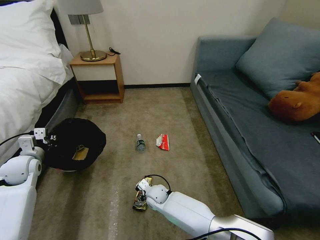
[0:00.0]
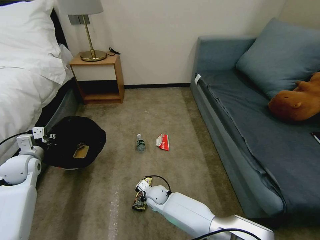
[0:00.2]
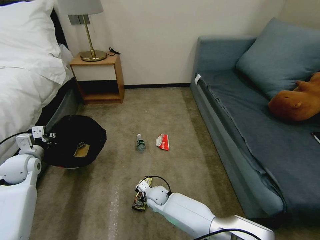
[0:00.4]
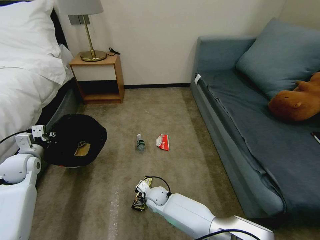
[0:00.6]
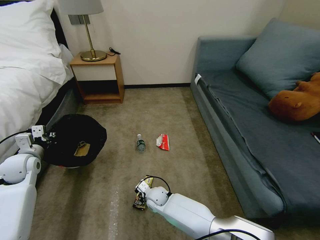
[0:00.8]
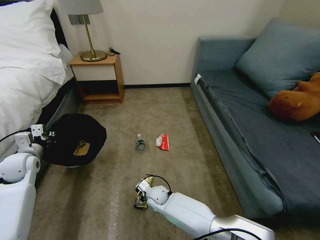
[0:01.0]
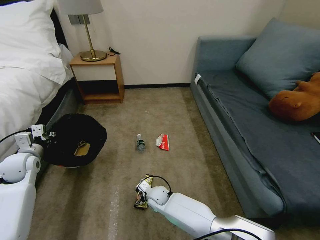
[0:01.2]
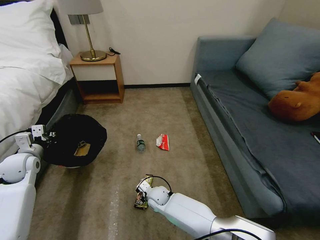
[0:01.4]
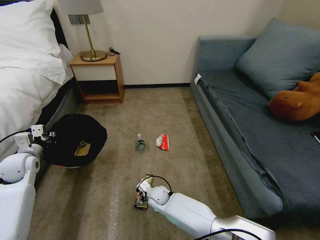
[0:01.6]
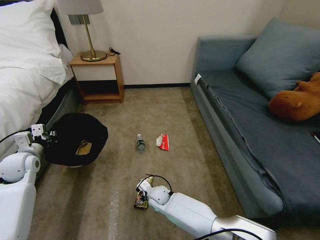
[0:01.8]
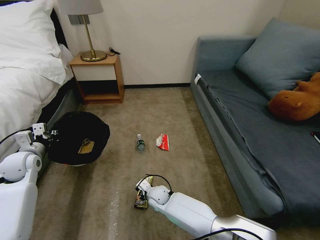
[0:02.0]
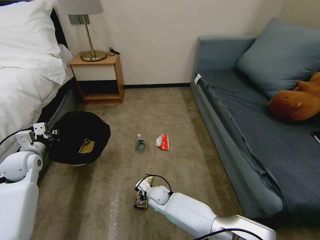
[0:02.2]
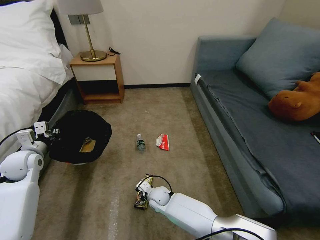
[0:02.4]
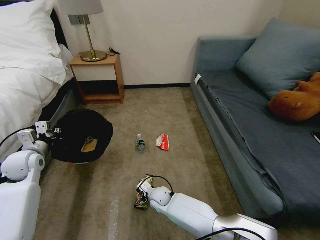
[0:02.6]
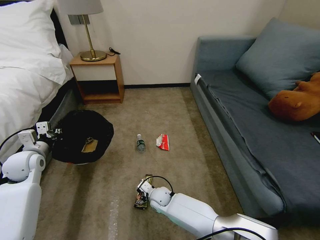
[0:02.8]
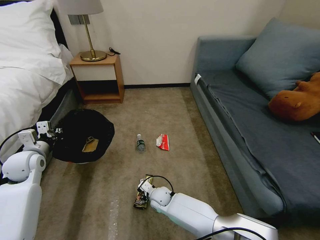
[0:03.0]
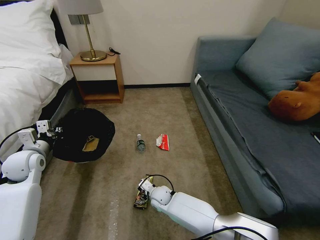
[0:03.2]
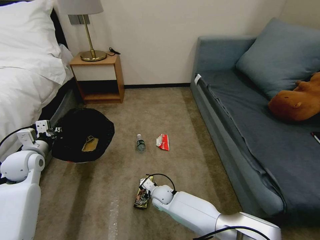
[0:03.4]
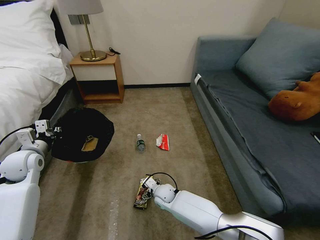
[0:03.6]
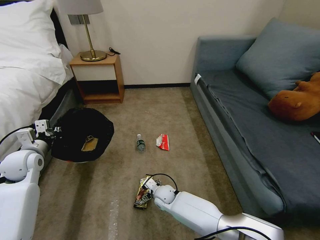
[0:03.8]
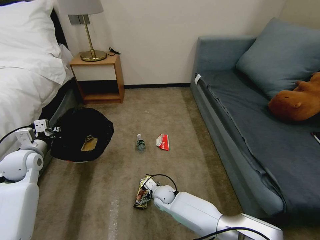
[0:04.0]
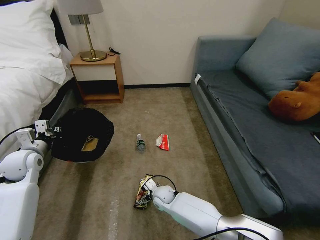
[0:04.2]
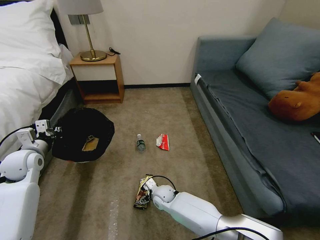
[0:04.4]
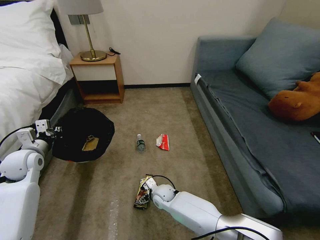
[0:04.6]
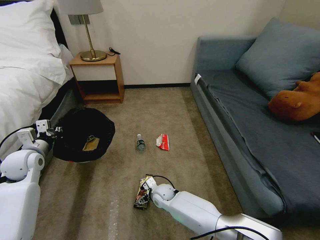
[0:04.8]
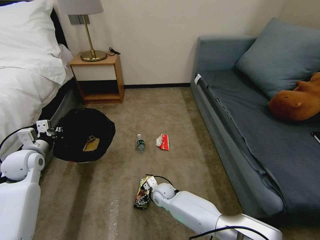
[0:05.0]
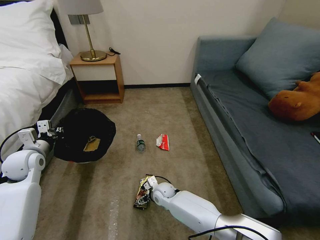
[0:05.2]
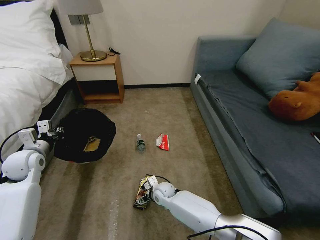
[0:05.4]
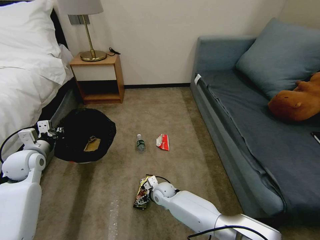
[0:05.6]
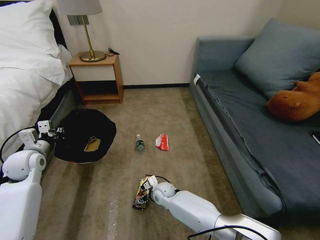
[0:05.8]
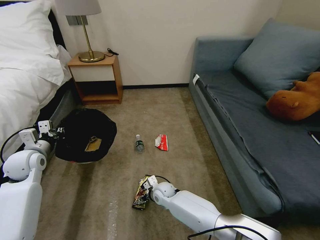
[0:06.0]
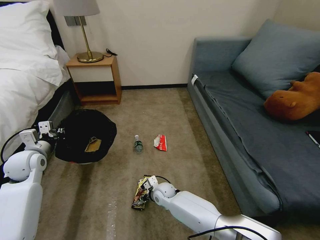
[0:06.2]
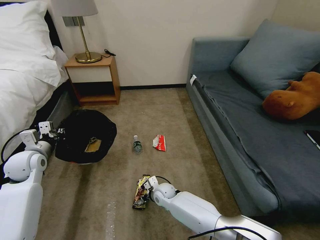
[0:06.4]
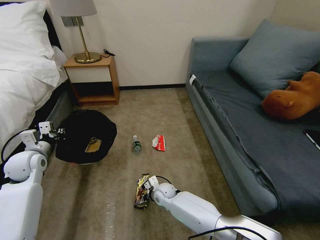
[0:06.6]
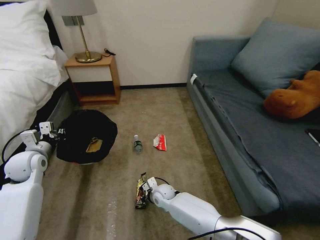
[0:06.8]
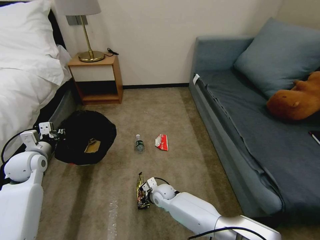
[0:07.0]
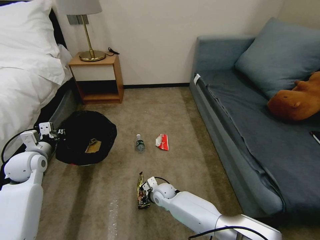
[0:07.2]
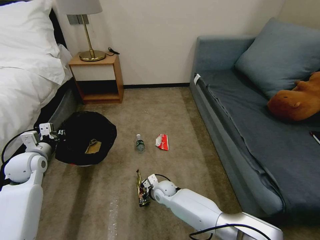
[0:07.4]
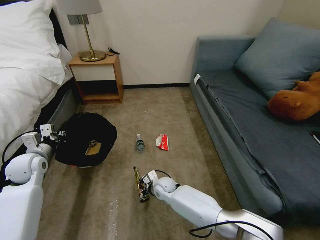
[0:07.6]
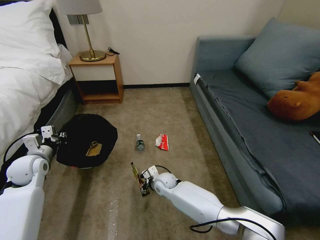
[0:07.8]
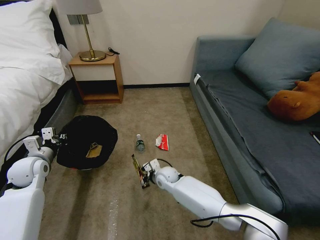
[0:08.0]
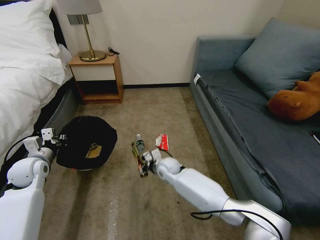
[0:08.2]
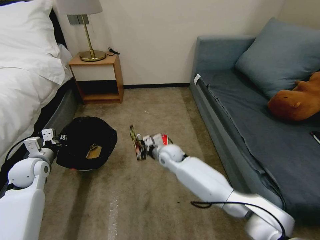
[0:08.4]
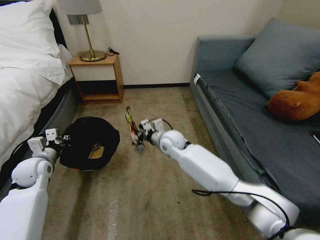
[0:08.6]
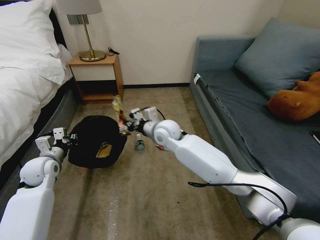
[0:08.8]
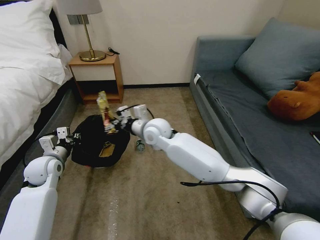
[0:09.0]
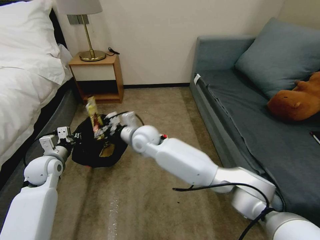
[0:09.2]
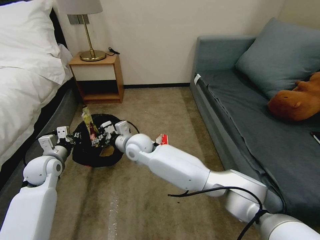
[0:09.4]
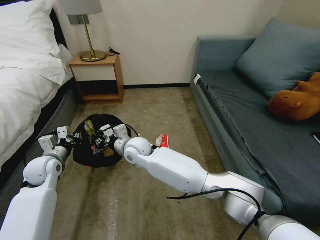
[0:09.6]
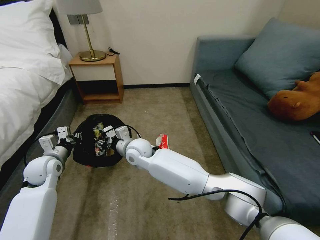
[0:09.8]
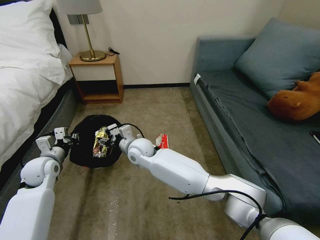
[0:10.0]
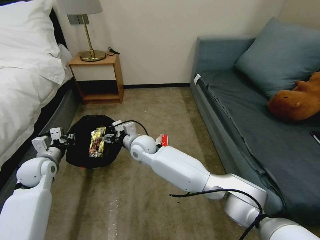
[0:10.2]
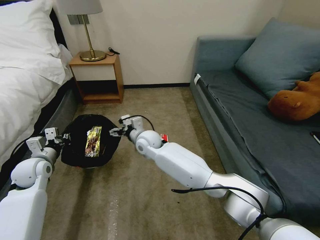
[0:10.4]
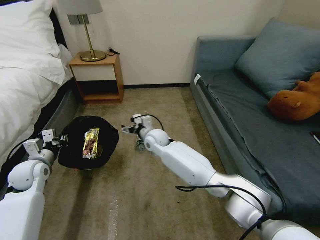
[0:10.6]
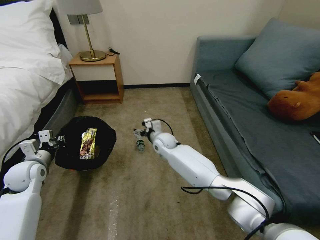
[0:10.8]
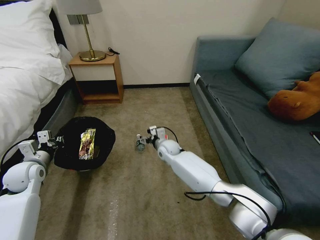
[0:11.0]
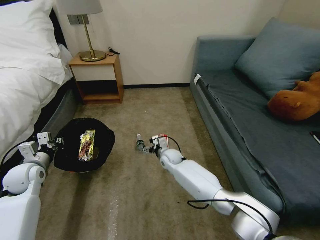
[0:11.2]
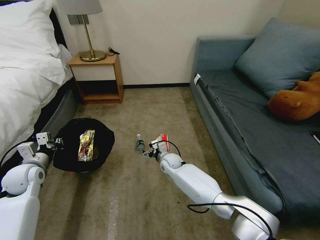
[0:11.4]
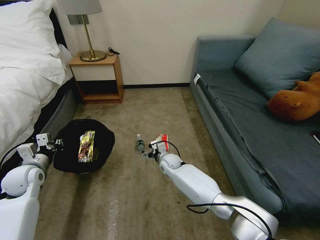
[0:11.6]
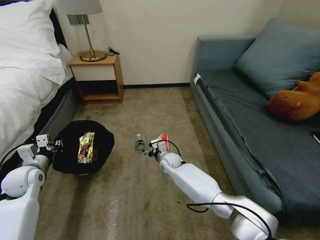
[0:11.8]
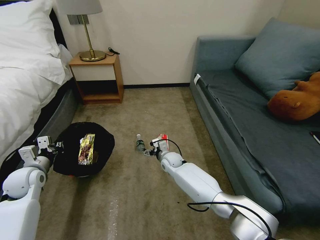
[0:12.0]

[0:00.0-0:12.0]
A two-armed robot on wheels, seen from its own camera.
Task of the whole recording: Pick up the trash bin, then pick up the garbage on the floor and place it into the trash bin.
0:00.0 to 0:01.6: The right gripper closes up.
0:01.6 to 0:03.0: The right gripper opens its fingers.
0:03.0 to 0:04.4: The right gripper opens its fingers.
0:04.4 to 0:06.0: There are only small adjustments of the grippers.
0:06.0 to 0:07.6: The right gripper closes.
0:07.6 to 0:09.0: The right gripper shifts some 30 cm upward.
0:09.0 to 0:10.4: The right gripper goes about 5 cm downward, and opens up.
0:10.4 to 0:12.0: The right gripper shifts some 20 cm downward and to the right.

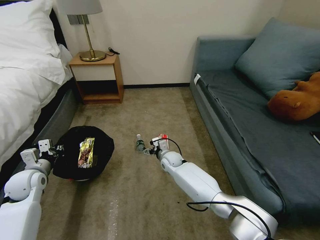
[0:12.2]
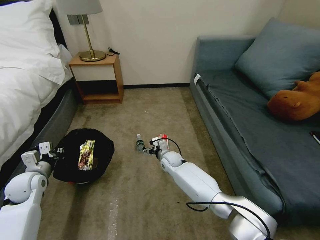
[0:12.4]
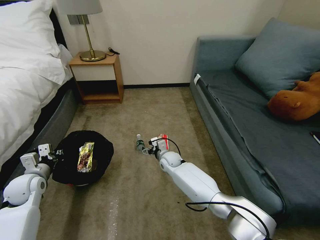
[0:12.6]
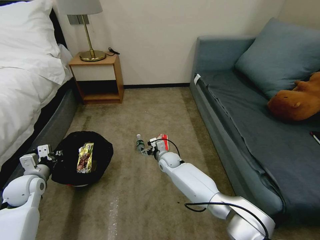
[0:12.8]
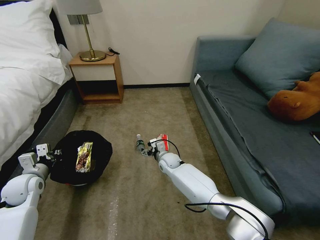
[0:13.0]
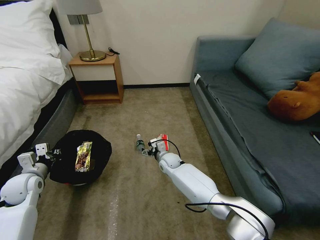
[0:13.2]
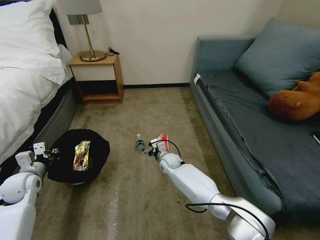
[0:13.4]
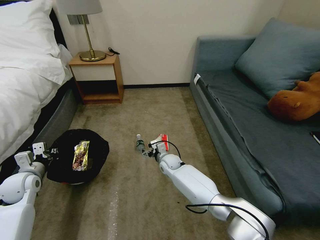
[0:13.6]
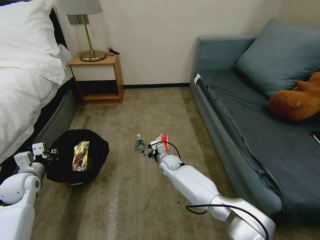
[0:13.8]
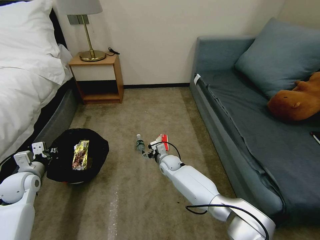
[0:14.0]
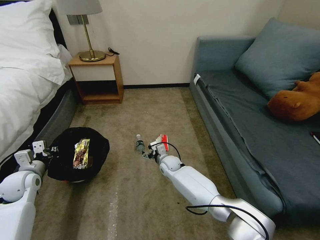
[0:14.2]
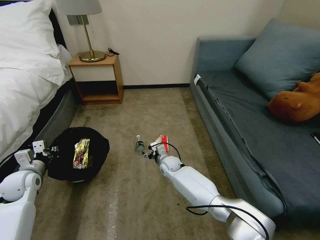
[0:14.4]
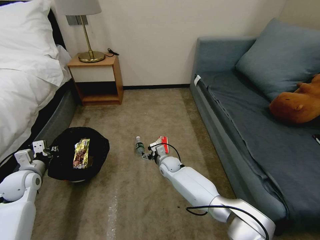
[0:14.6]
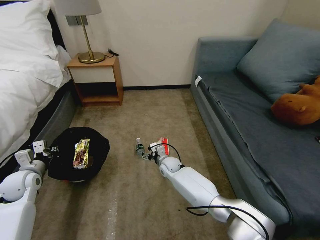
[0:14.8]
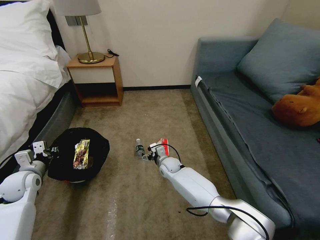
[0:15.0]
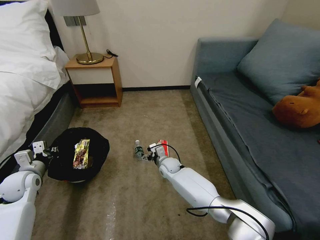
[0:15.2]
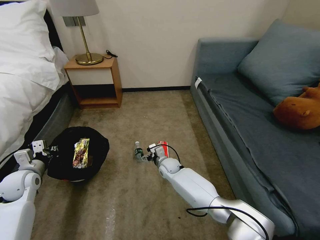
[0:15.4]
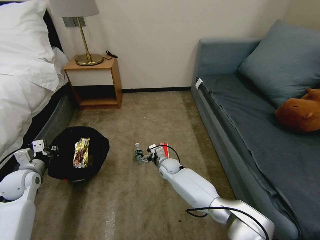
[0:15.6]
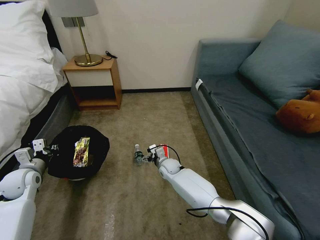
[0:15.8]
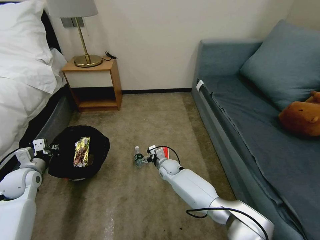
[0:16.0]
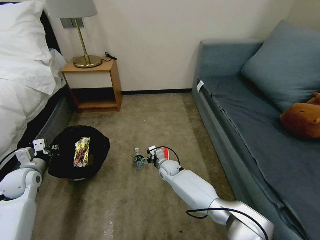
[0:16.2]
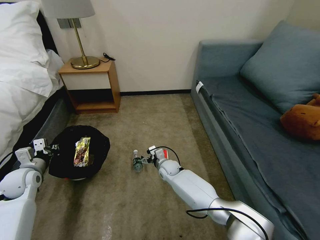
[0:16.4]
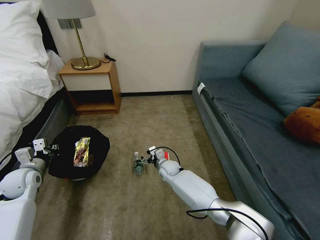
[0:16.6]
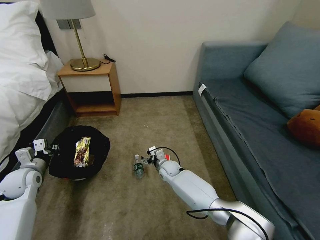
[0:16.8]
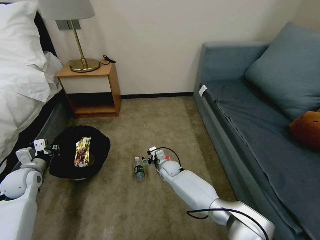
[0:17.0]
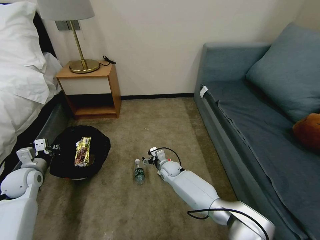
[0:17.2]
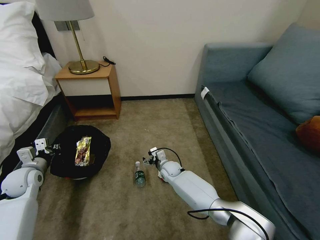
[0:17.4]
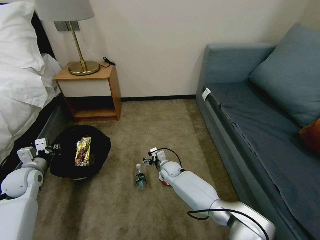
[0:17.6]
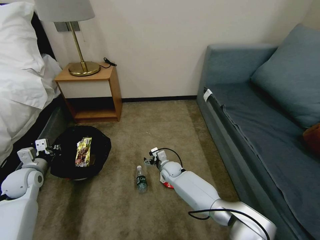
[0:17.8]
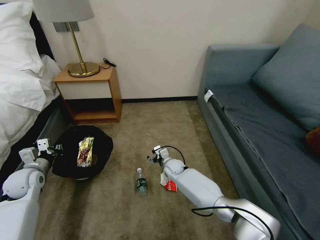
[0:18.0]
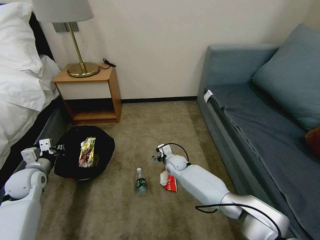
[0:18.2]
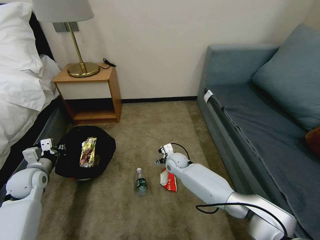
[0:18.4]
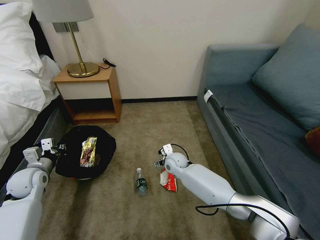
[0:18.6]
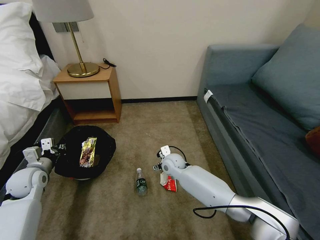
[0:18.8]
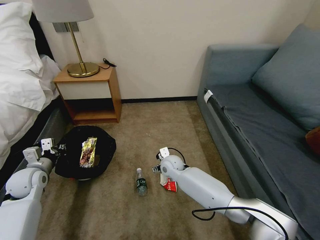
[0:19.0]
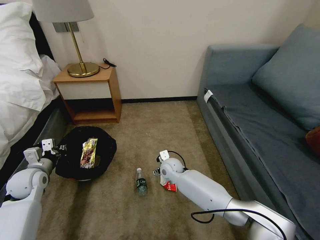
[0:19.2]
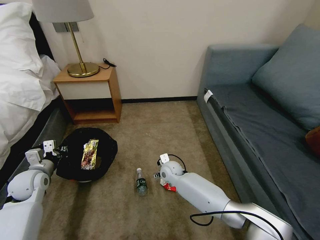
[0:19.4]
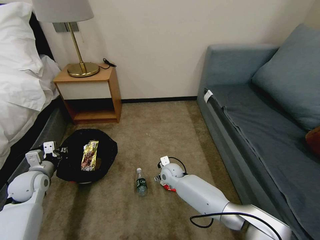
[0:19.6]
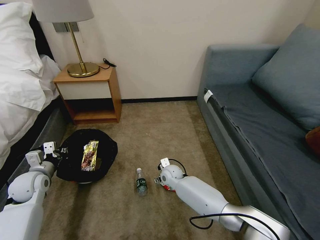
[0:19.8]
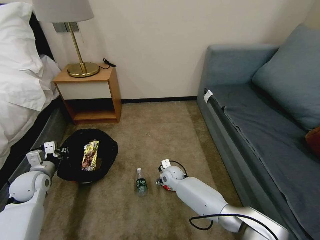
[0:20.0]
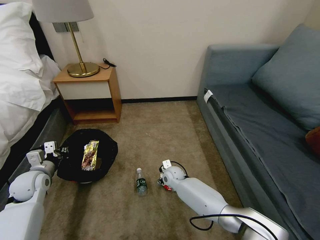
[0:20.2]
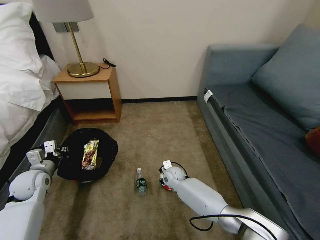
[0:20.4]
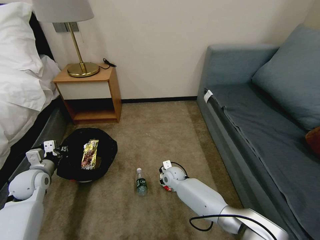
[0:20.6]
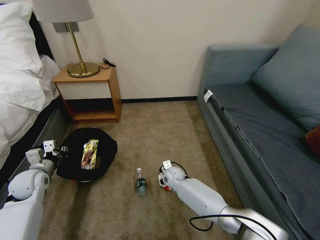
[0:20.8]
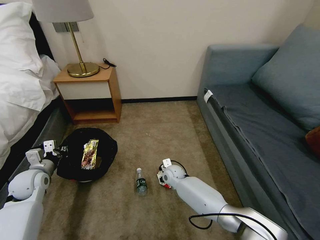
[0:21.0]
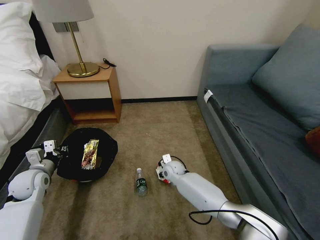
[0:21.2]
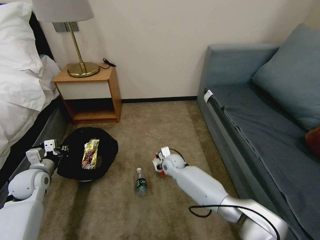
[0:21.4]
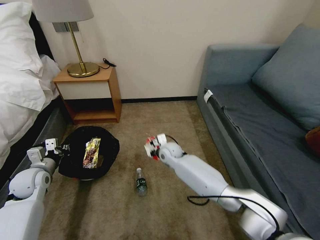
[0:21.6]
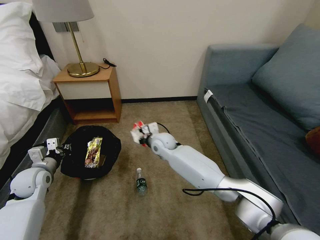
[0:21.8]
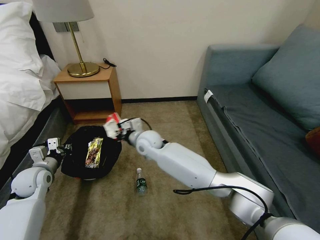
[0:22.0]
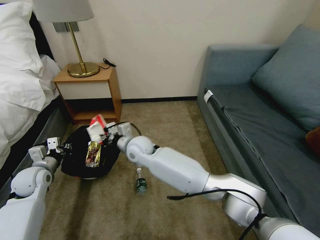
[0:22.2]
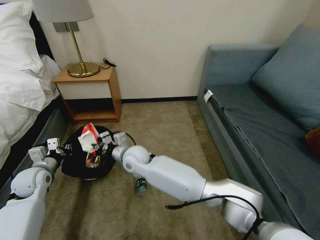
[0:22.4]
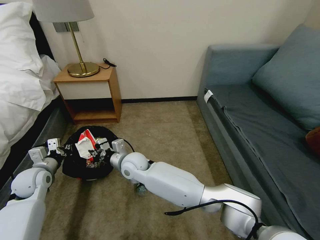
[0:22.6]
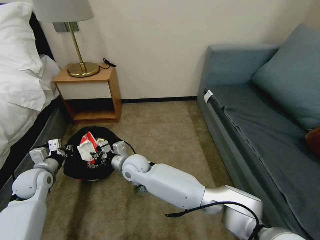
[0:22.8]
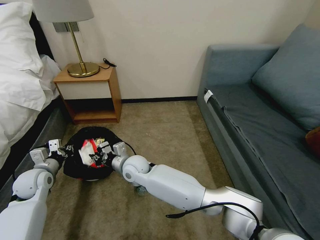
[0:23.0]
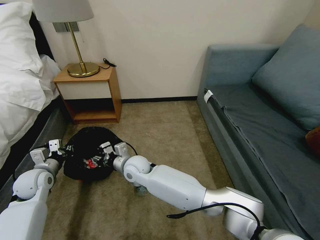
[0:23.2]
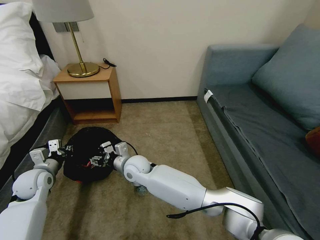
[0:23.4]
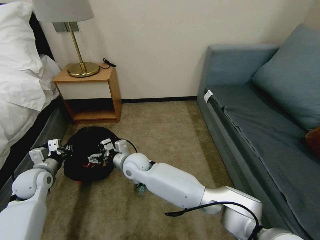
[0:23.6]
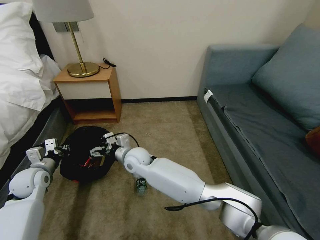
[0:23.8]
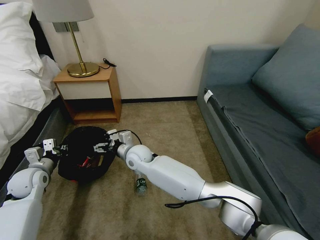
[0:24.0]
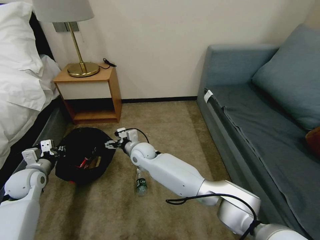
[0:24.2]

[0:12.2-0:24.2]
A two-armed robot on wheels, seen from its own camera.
Task of the whole recording: Pick up the trash bin, then pick up the garbage on the floor and place it into the trash bin.
0:12.2 to 0:13.8: There are only small adjustments of the grippers.
0:13.8 to 0:15.2: Neither gripper changes place.
0:15.2 to 0:16.6: The two grippers keep their place.
0:18.2 to 0:19.8: The right gripper changes place by about 5 cm.
0:19.8 to 0:21.2: The right gripper closes.
0:21.2 to 0:22.6: The right gripper is displaced to the left and upward by roughly 20 cm.
0:22.6 to 0:24.2: The right gripper is displaced forward by roughly 5 cm, and opens.
